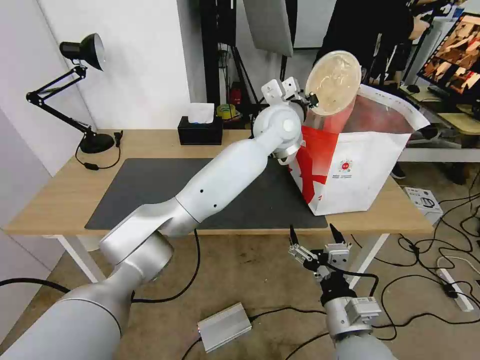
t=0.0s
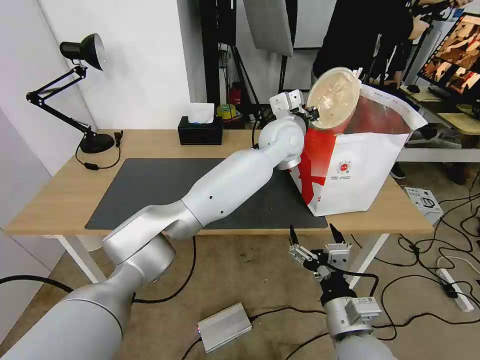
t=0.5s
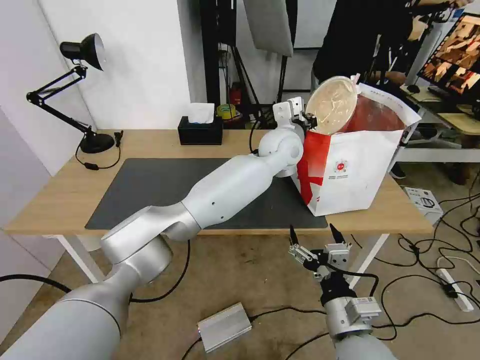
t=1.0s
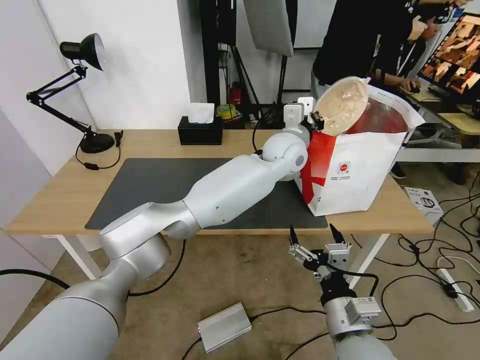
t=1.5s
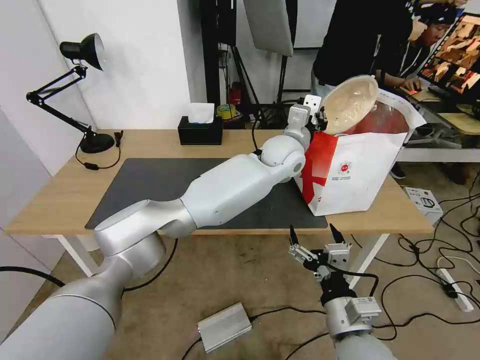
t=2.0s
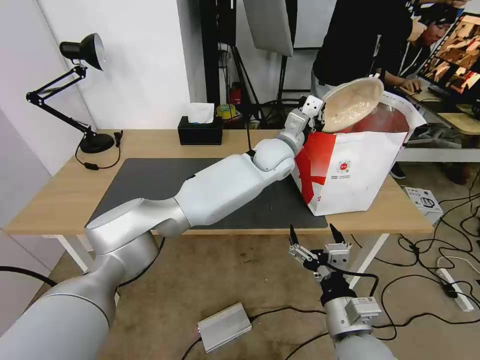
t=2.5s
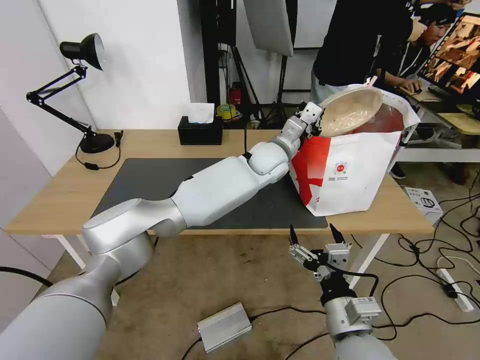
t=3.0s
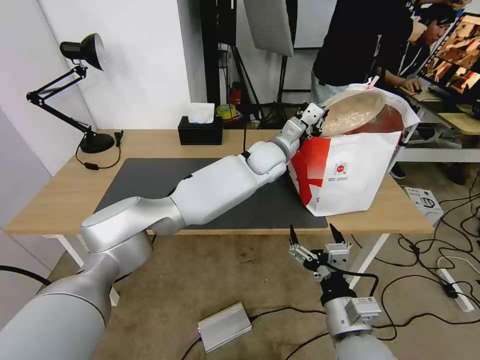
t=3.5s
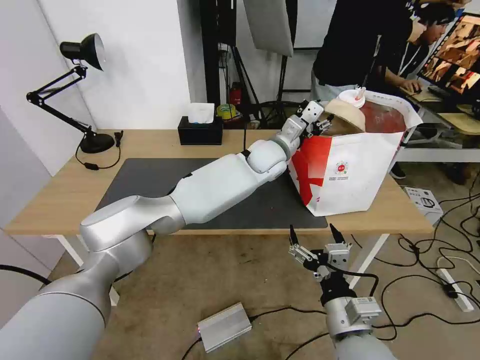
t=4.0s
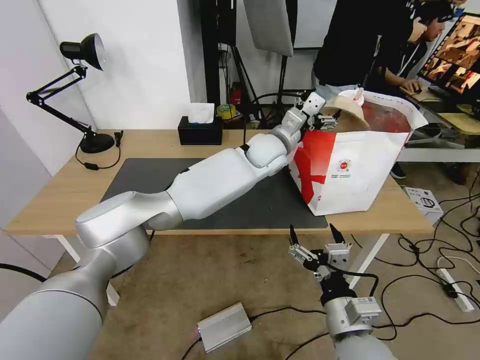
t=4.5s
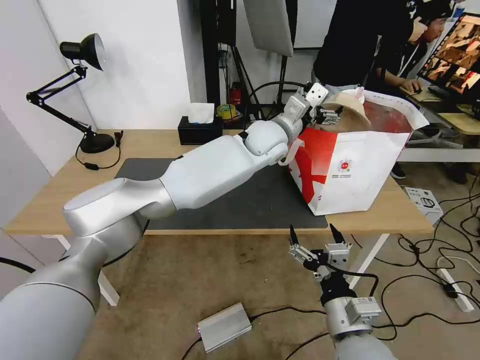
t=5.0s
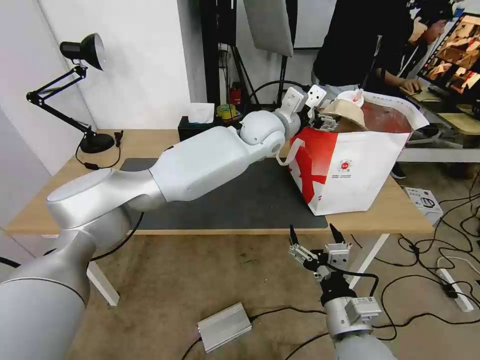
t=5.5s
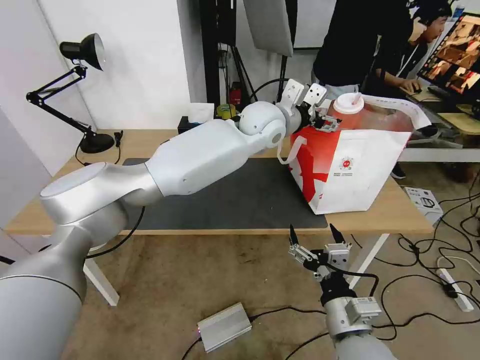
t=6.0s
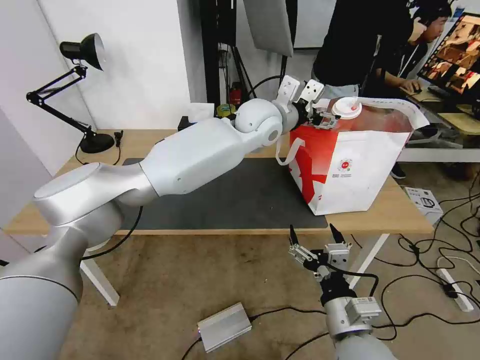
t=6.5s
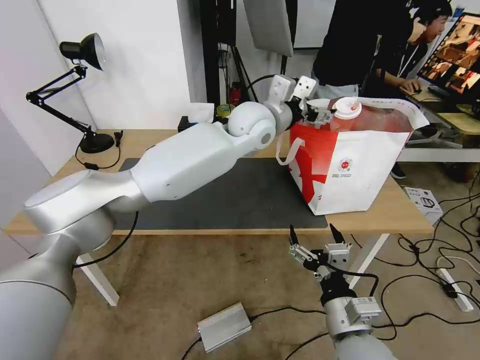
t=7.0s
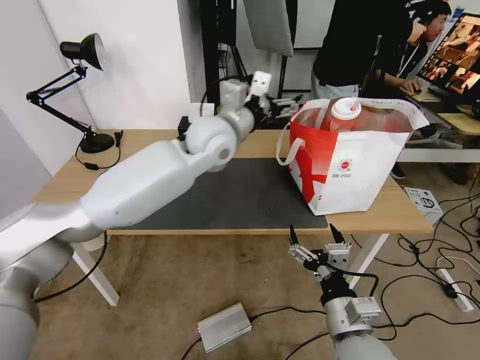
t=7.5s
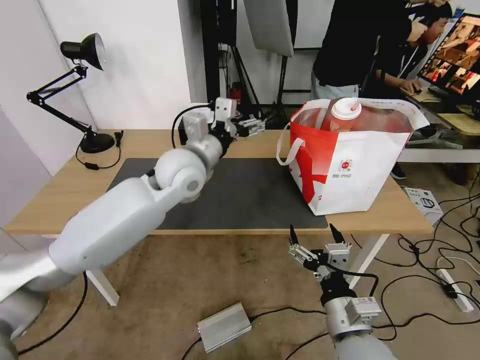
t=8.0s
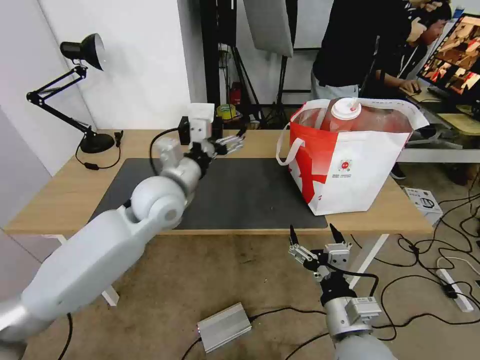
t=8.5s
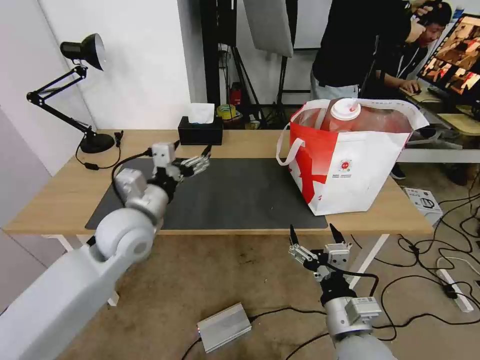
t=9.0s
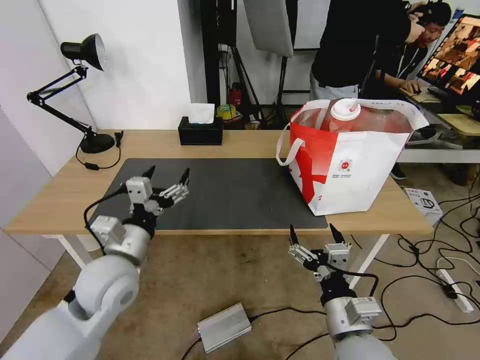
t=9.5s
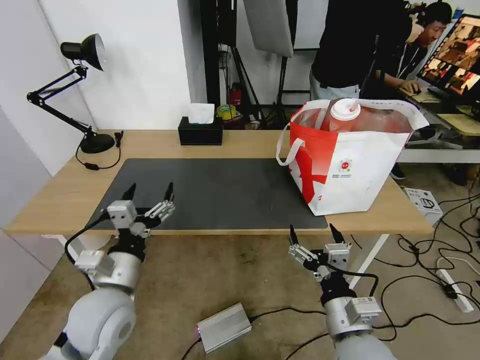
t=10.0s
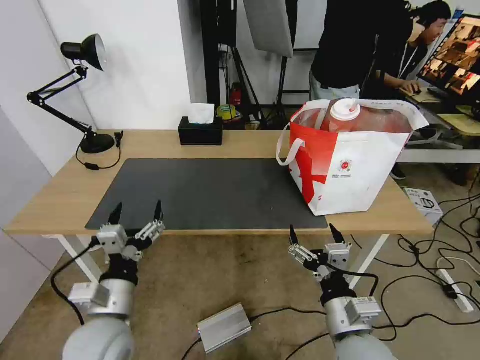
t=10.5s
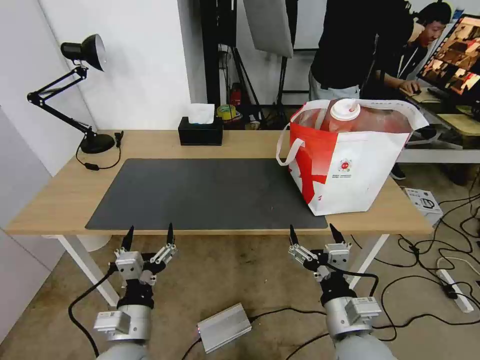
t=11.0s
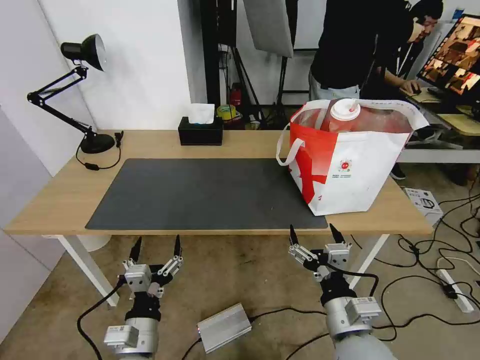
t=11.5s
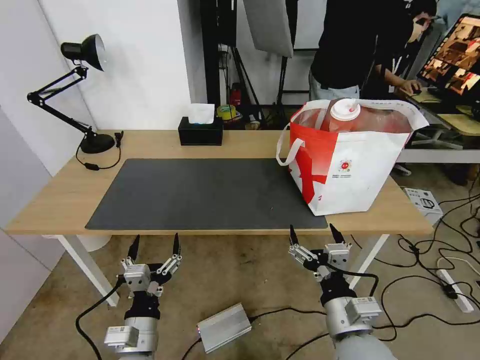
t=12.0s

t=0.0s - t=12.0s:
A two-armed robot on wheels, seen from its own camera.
Task of the whole recording: Pick up the trash from the table and place it into the takeout bag.
t=0.0s - t=2.0s: The left gripper goes roughly 5 cm downward.
t=2.0s - t=4.0s: The left gripper opens up.
t=4.0s - t=6.0s: The left gripper shifts some 10 cm upward.
t=6.0s - t=8.0s: The left gripper shifts roughly 20 cm to the left and backward.
t=8.0s - t=10.0s: The left gripper moves backward, downward and to the left, roughly 30 cm.
t=10.0s - t=12.0s: The left gripper moves downward and backward, about 15 cm.

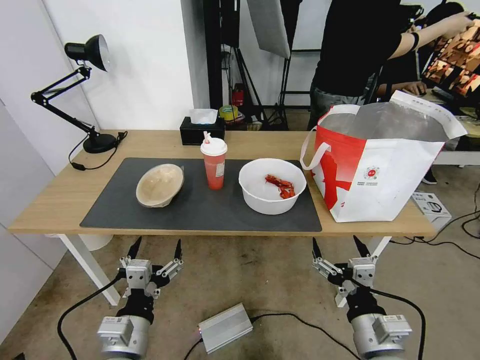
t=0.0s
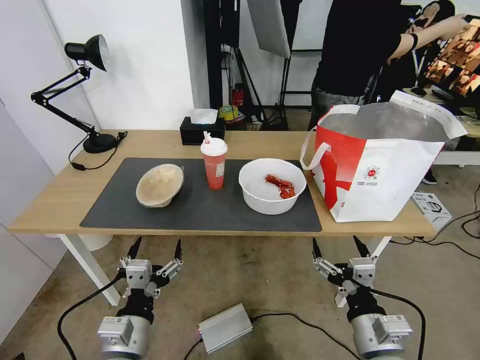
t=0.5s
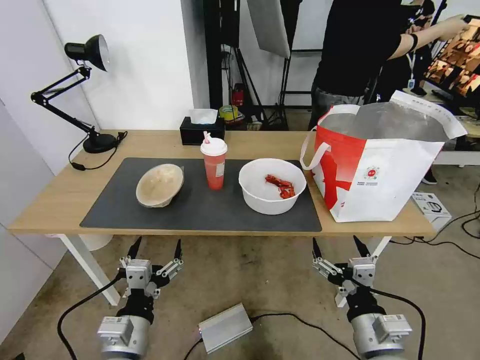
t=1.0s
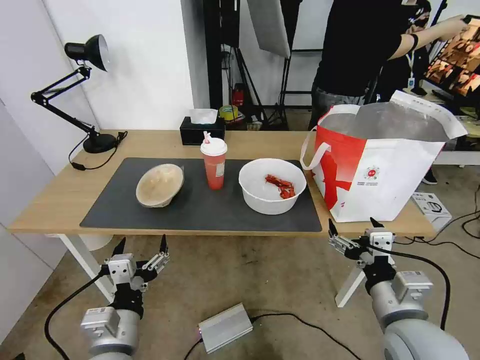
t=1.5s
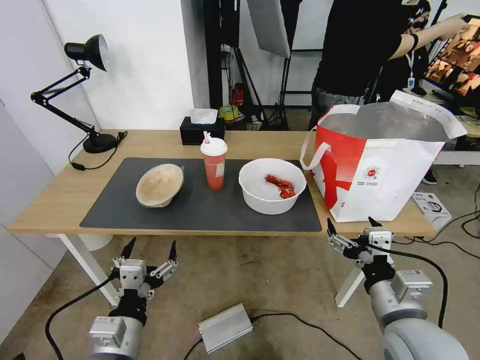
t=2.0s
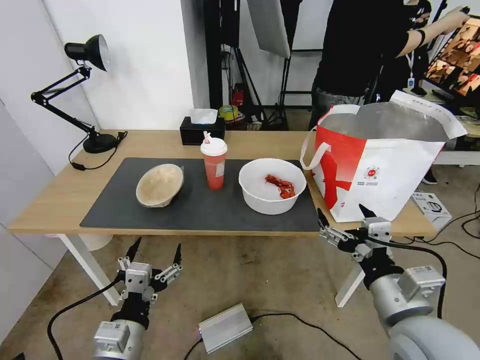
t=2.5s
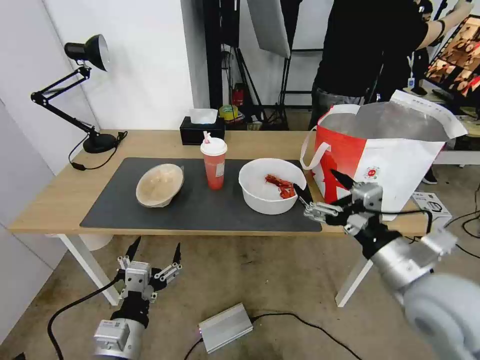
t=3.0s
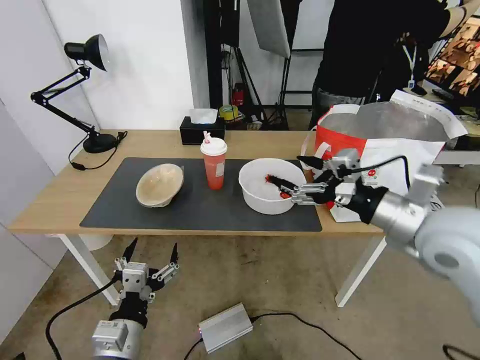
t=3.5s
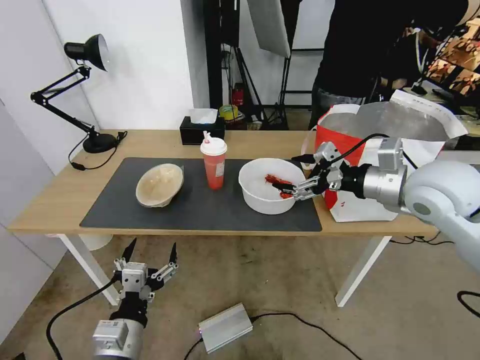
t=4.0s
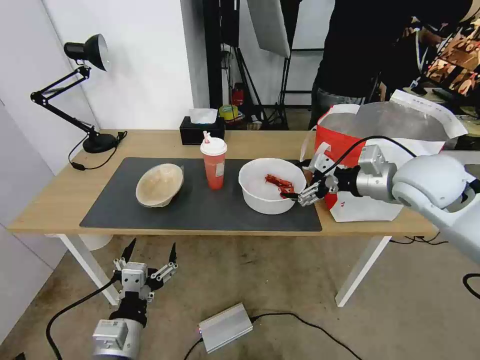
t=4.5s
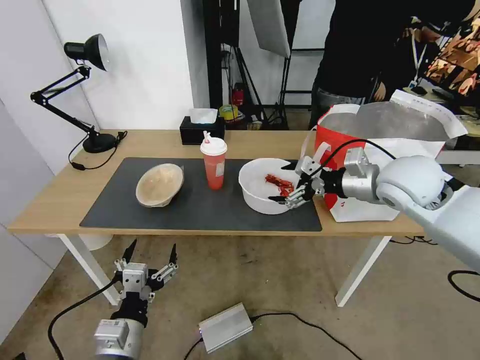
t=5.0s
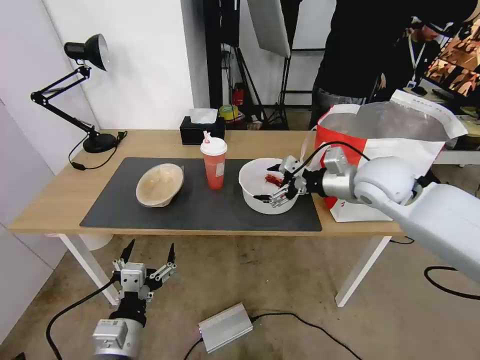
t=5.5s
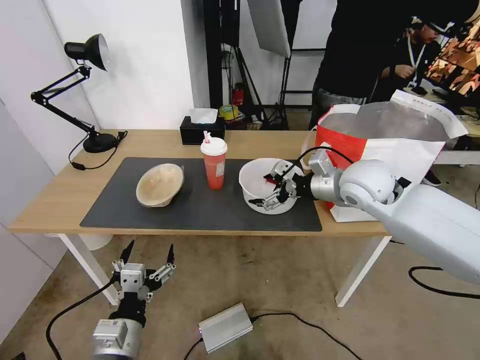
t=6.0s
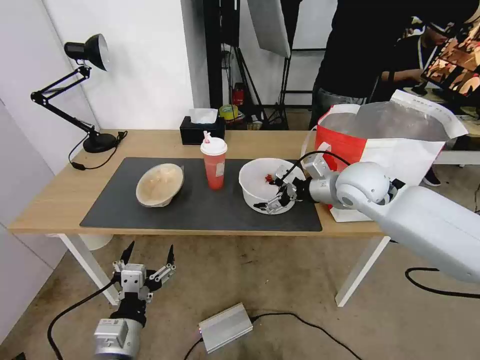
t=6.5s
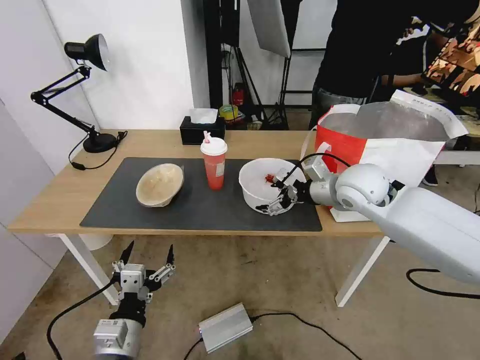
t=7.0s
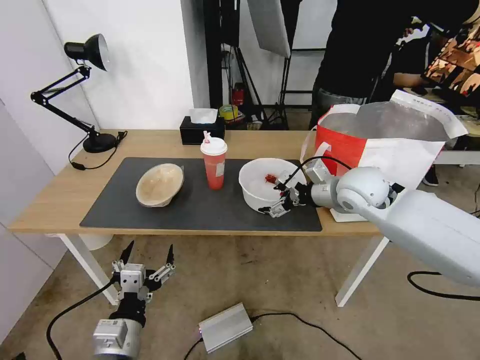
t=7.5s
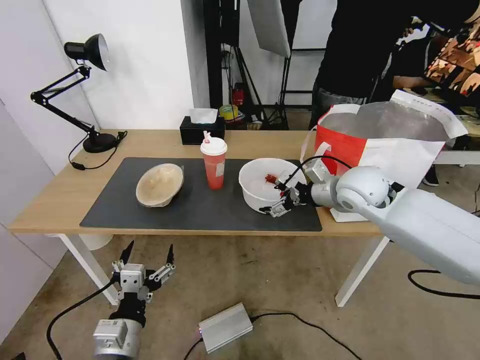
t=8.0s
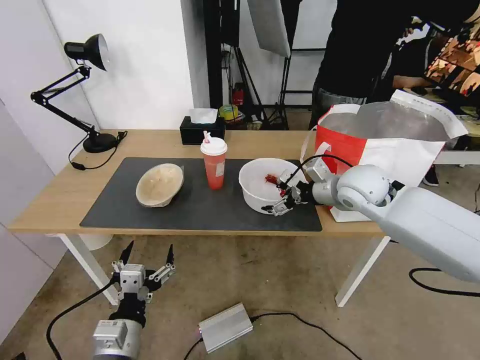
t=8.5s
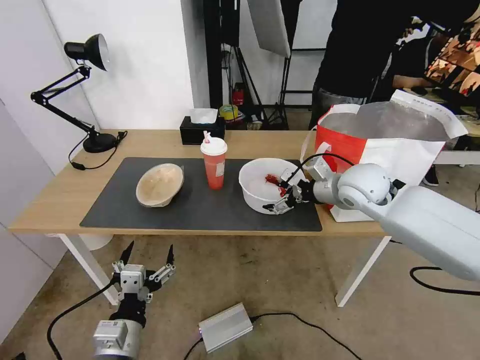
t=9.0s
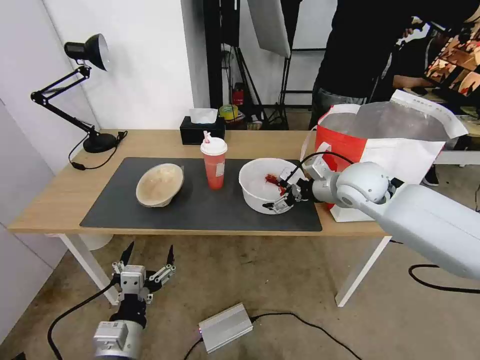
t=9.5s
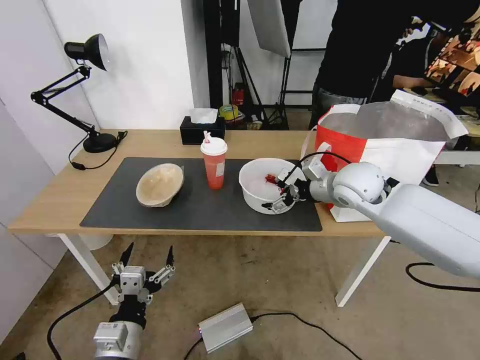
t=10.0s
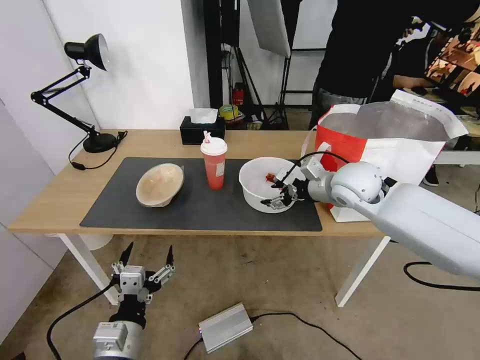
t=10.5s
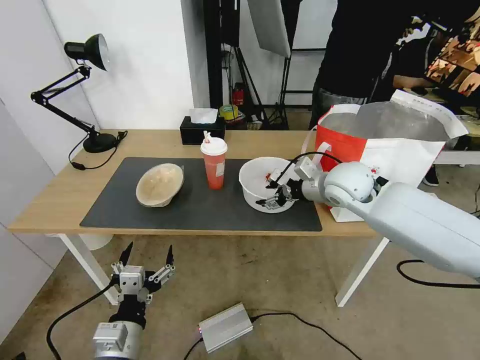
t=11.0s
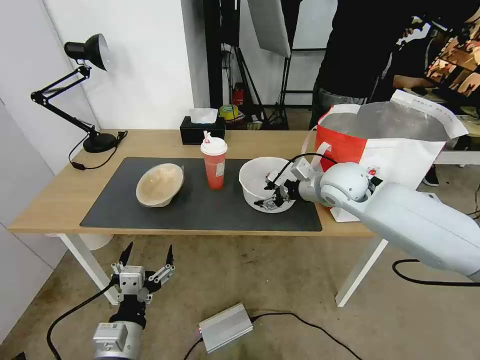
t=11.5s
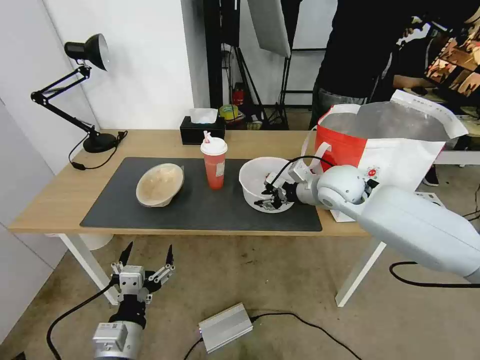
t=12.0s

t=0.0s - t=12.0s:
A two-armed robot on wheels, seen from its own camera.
Task of the whole recording: Pick up the trash from the table and place it into the takeout bag.
t=2.0s - t=4.0s: The right gripper travels forward and upward by some 25 cm.
t=4.0s - t=6.0s: The right gripper goes roughly 10 cm forward, to the left and downward.
t=6.0s - t=8.0s: The grippers move only a little.
t=8.0s - t=10.0s: Both grippers stay about where they are.
t=10.0s - t=12.0s: The right gripper closes.

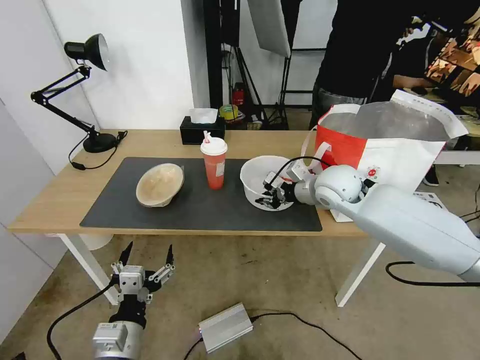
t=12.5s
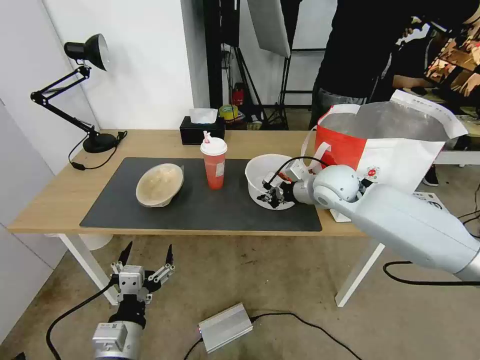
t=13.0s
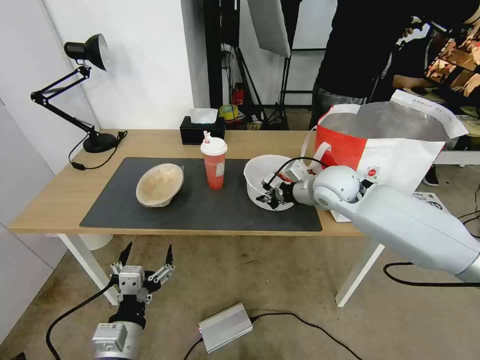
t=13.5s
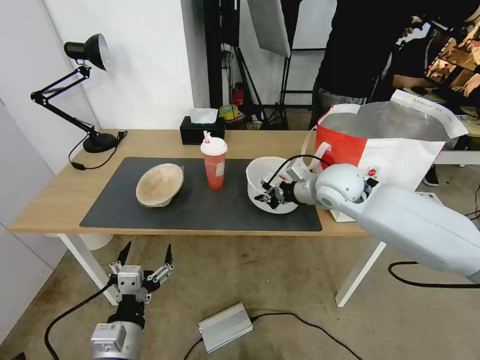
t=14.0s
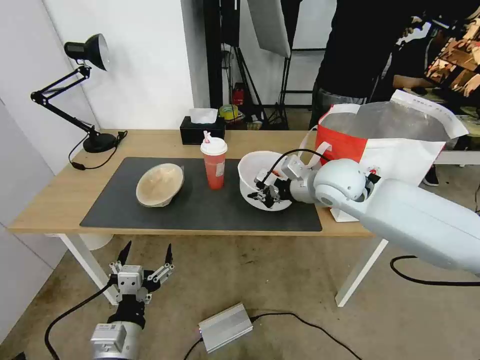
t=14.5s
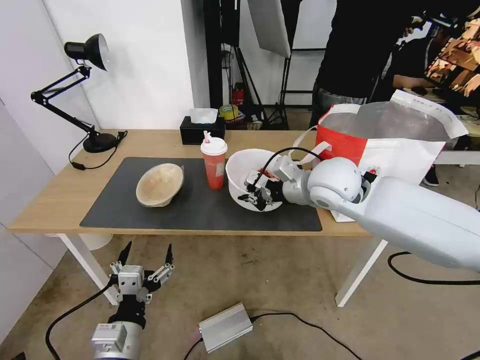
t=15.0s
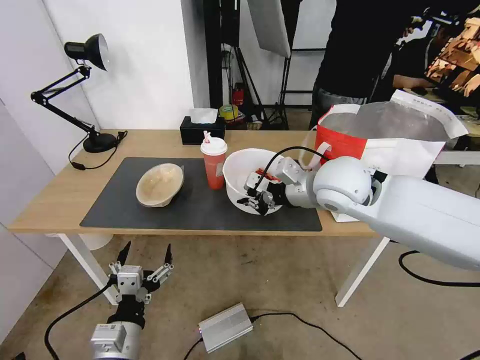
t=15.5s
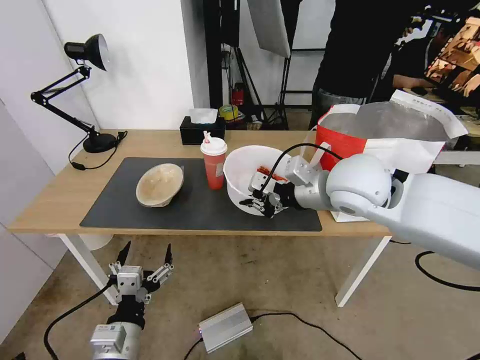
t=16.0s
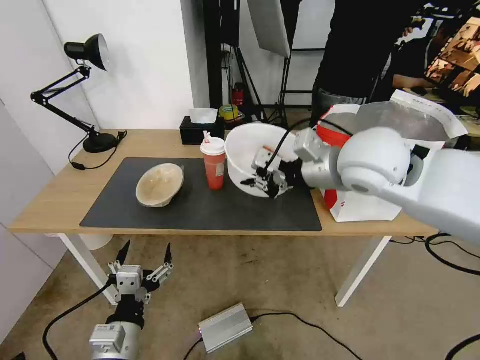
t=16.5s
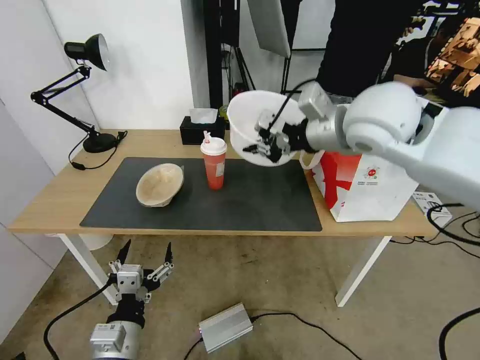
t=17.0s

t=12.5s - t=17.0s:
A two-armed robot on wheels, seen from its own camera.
Task of the whole recording: Pick up the trash from the table and place it into the takeout bag.
t=12.5s - t=14.5s: The right gripper shifts by some 5 cm.
t=14.5s - t=17.0s: The right gripper is displaced upward by some 15 cm.
